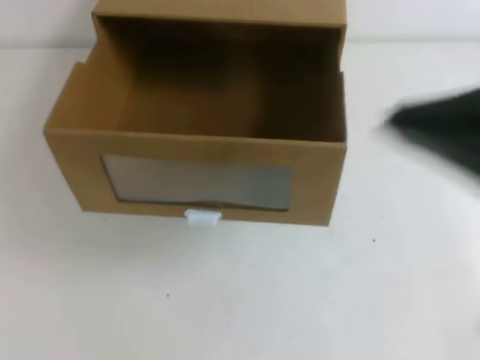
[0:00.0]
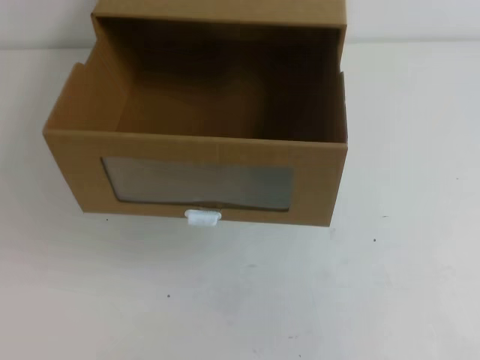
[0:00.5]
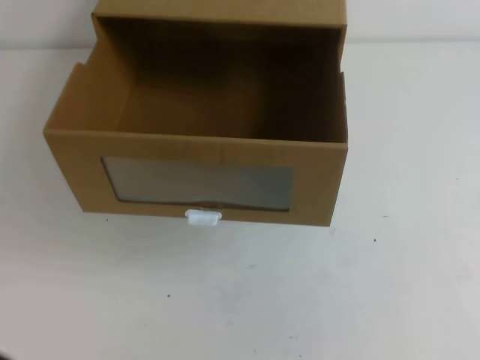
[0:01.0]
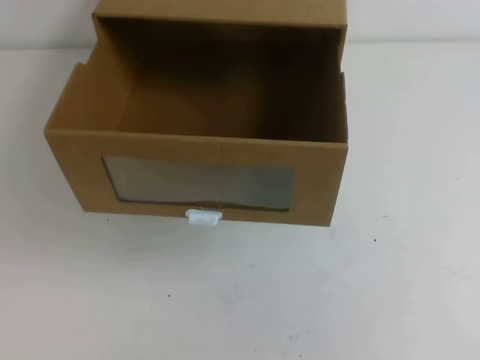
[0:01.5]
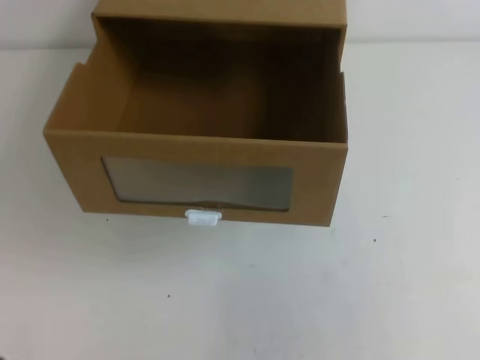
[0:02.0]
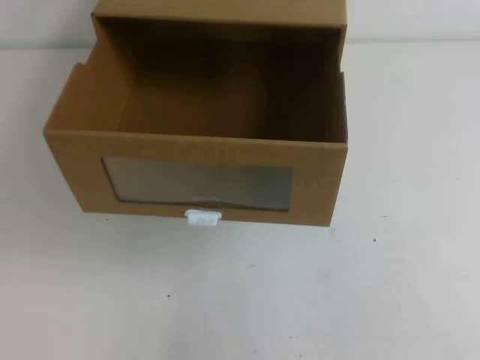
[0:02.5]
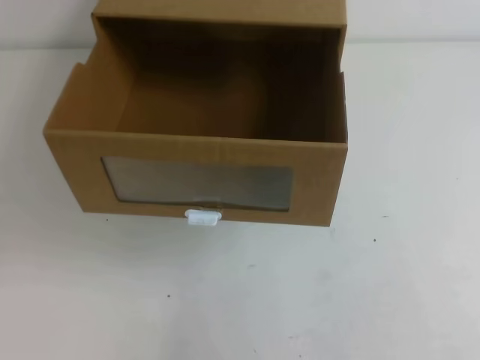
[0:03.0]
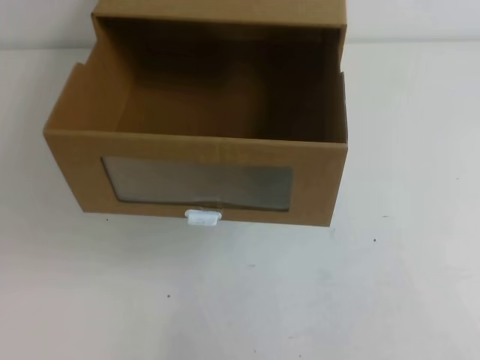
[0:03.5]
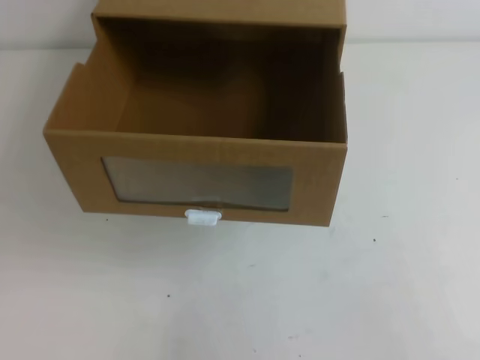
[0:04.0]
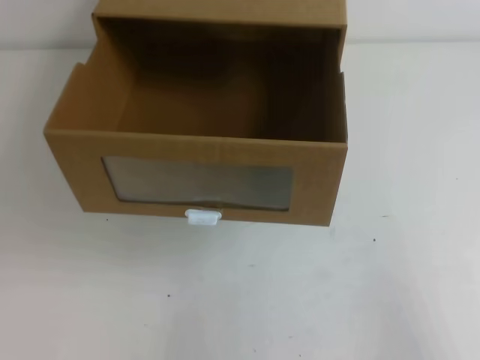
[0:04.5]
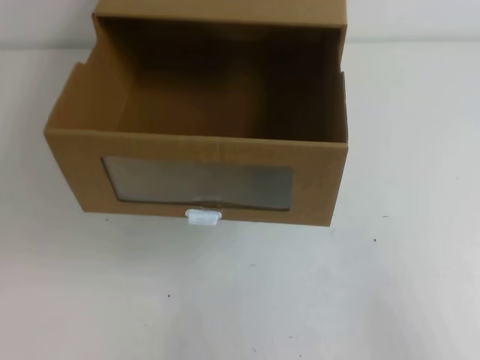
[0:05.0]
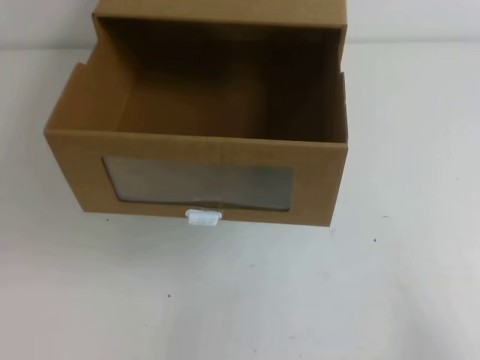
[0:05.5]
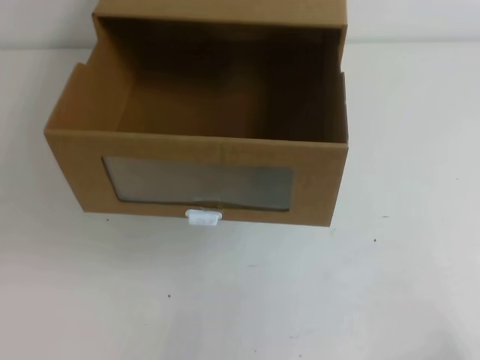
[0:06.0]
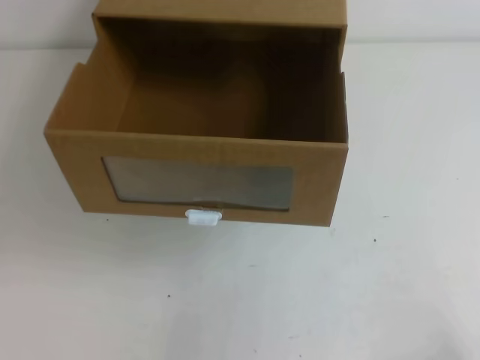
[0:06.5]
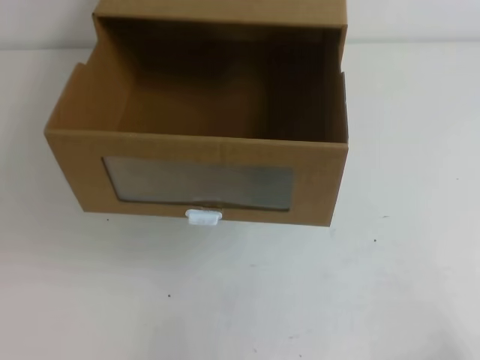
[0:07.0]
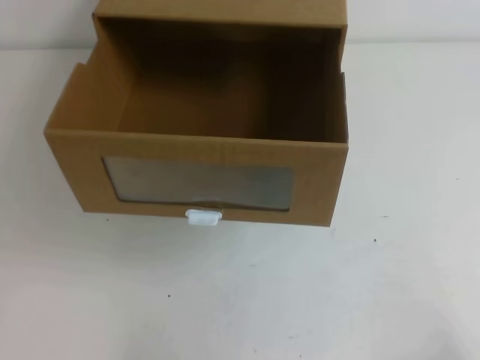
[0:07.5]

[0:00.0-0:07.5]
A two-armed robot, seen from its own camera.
Task of the whole recording: open the shoebox on the table.
Step, 0:00.0 to 0:07.5: Open the shoe box.
0:00.0 to 0:02.0: The right gripper heads to the right and downward, covering roughly 20 cm. Meanwhile the left gripper heads downward and backward, covering approximately 40 cm.
